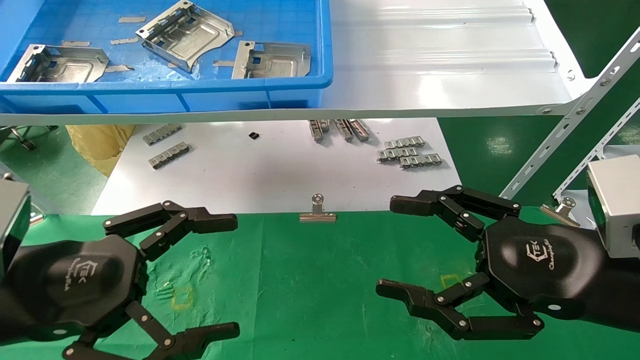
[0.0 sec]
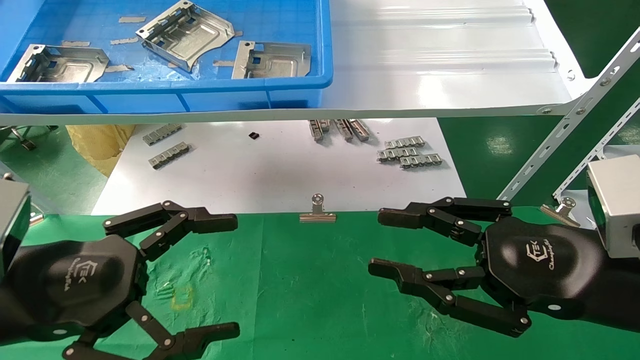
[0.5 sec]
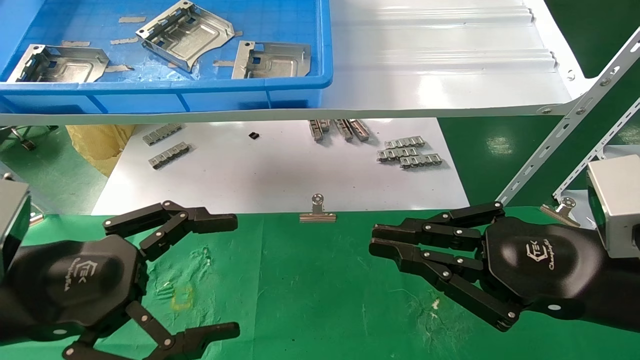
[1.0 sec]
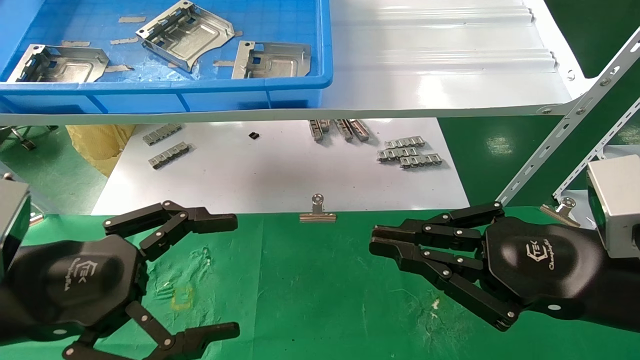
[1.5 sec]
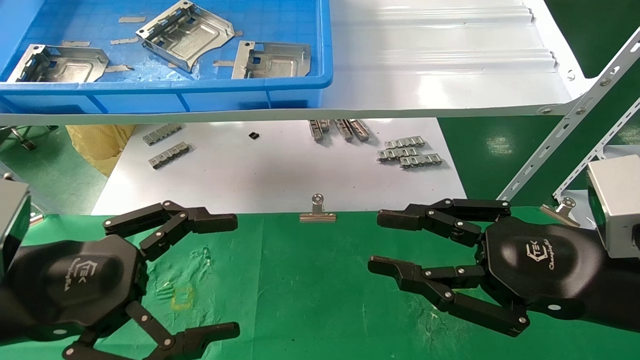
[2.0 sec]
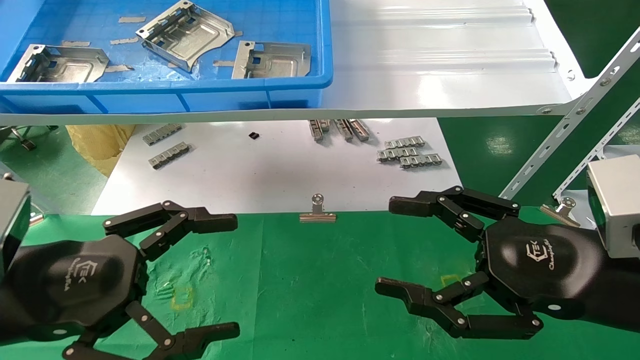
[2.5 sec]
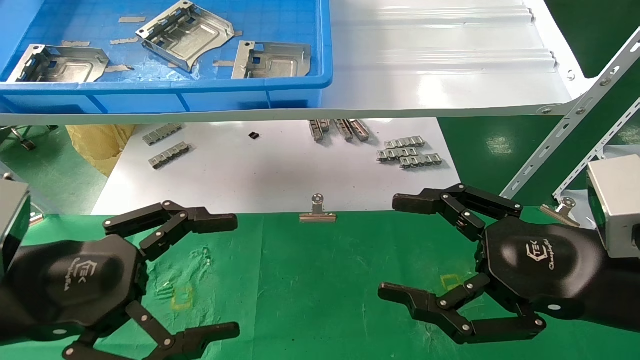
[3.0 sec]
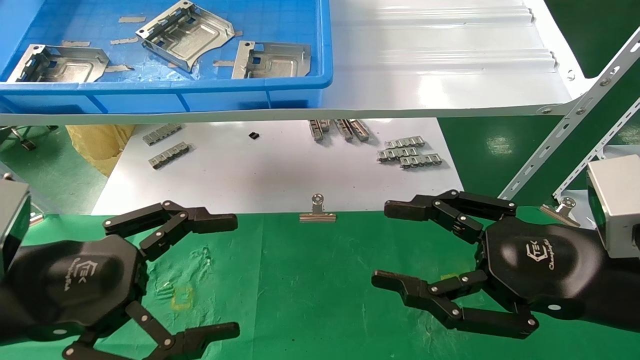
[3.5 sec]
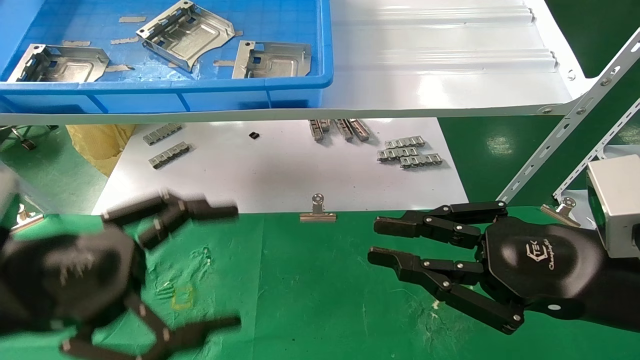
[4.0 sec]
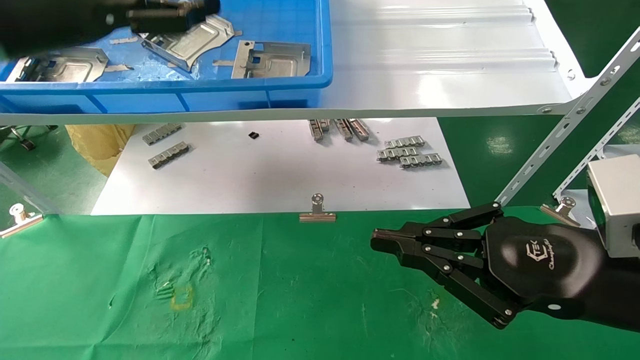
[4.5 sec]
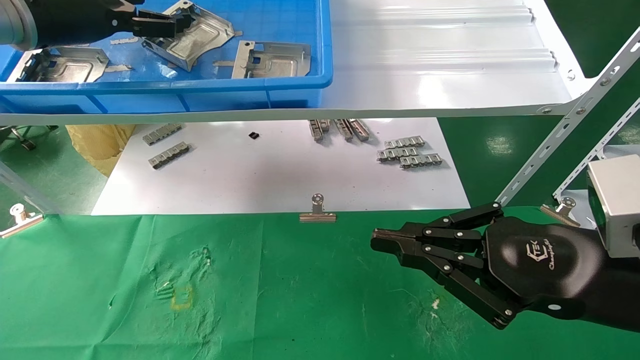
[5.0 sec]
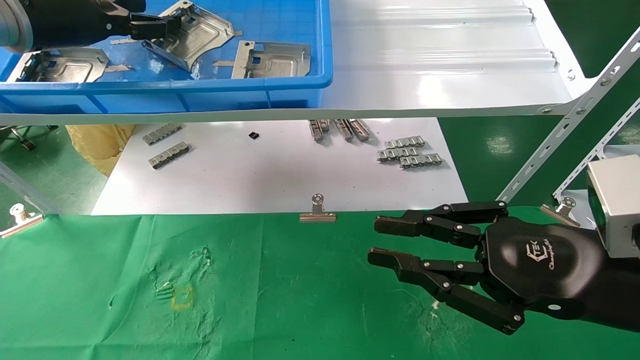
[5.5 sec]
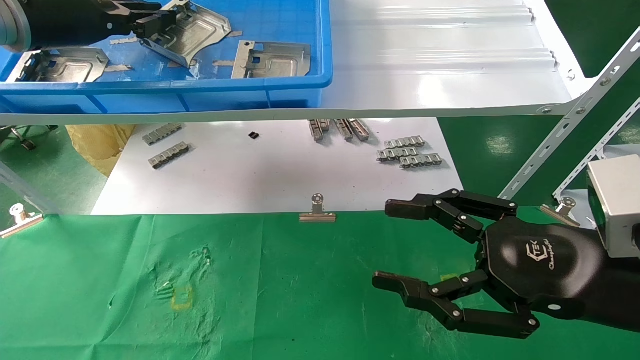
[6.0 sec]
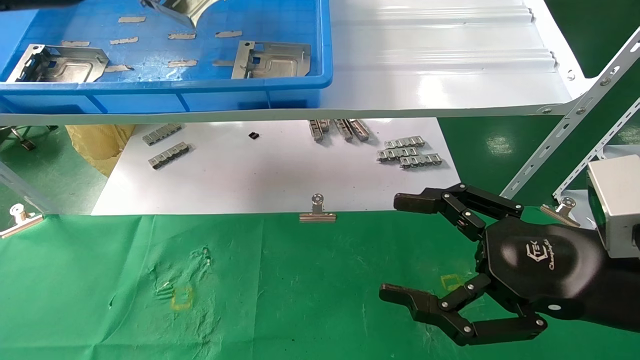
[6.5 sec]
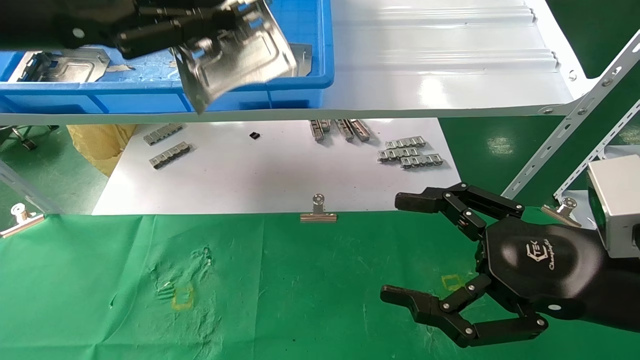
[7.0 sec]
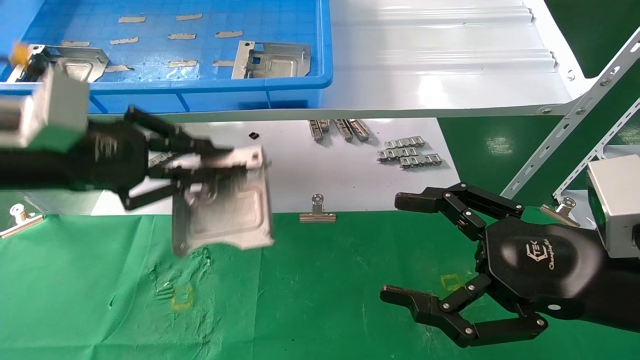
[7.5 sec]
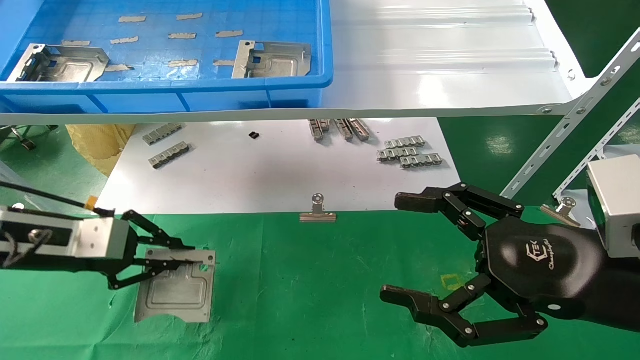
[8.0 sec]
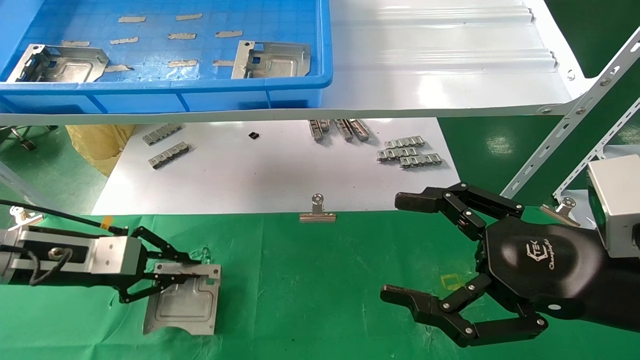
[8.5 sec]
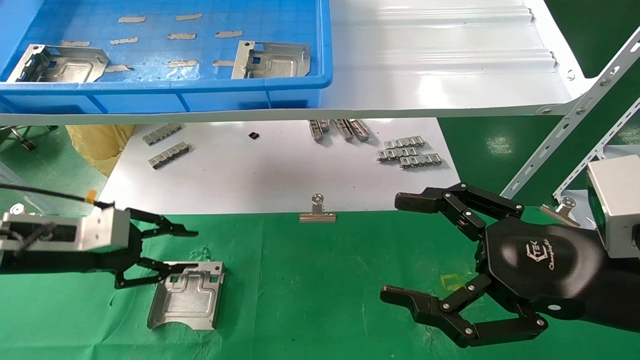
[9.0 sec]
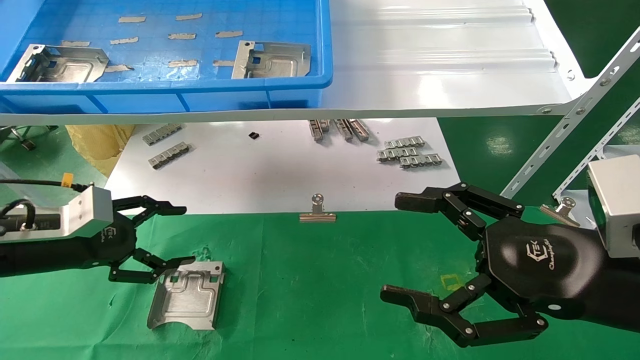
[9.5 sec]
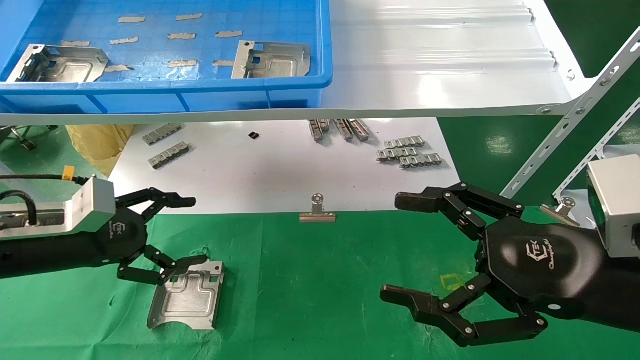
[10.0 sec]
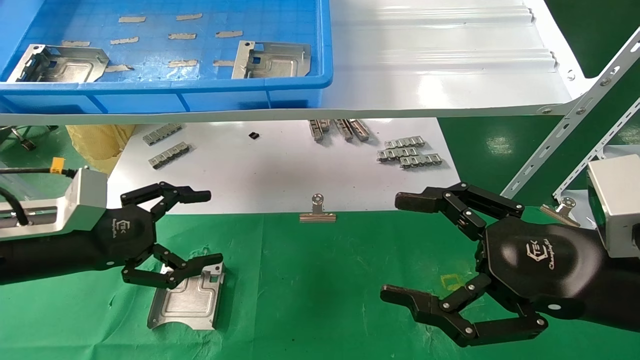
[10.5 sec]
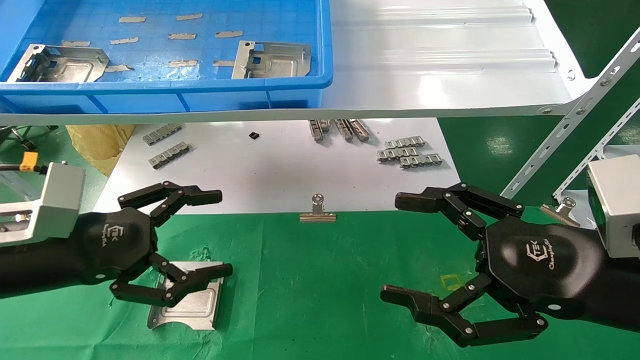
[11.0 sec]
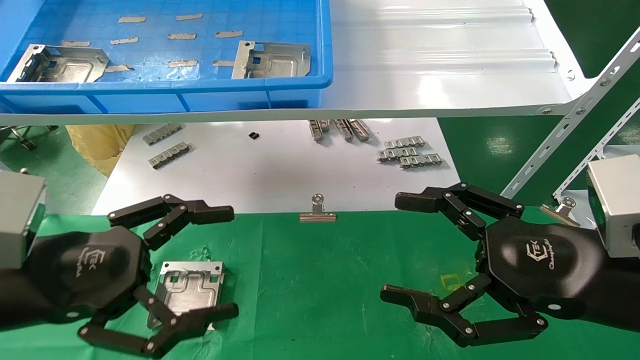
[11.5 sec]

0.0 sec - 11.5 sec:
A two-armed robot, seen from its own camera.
Task of the whole recording: use the mechanical arm to pick up the parts and place them on the table.
Step, 4.5 sec - 6.0 sec: Pick up the hard drive bracket from the feeding area.
Step, 6.5 sec - 8.5 sec: Place the hard drive bracket into the box.
0.0 sec - 2.0 sec: The right gripper closes.
2.0 sec - 4.0 sec: The right gripper opens and closes again.
4.0 sec - 6.0 sec: The left gripper is displaced forward and upward by approximately 25 cm, and closes its fingers.
6.0 sec - 7.5 sec: The left gripper shifts about 15 cm downward and backward; the right gripper opens its fingers.
7.5 sec - 9.5 sec: The left gripper travels downward and to the left by roughly 15 cm, and opens its fingers.
9.5 sec - 11.5 sec: The left gripper shifts about 15 cm backward and to the right.

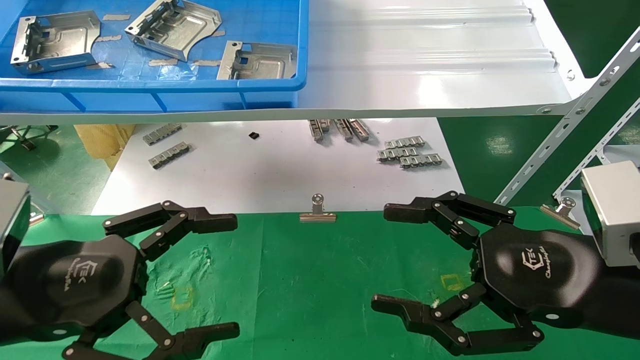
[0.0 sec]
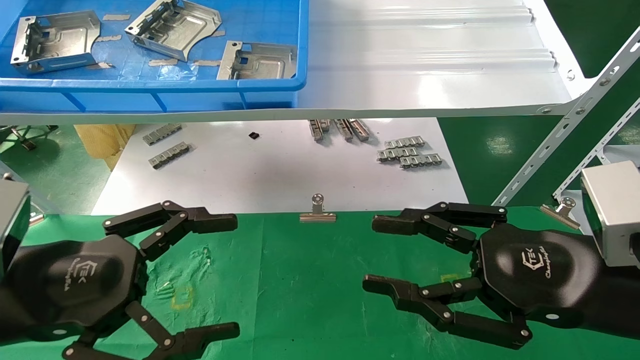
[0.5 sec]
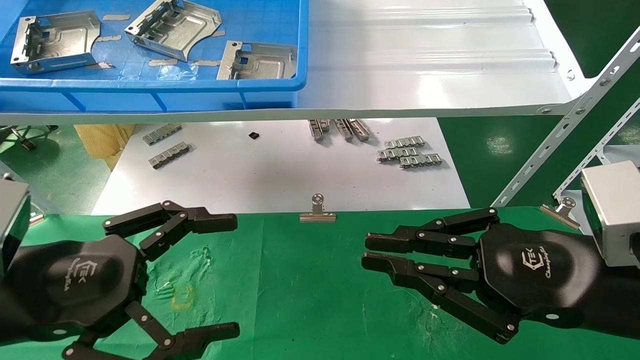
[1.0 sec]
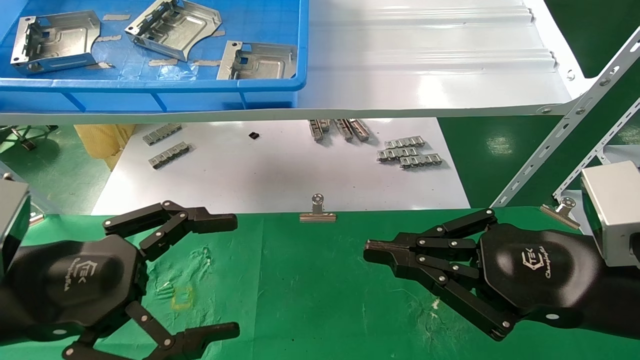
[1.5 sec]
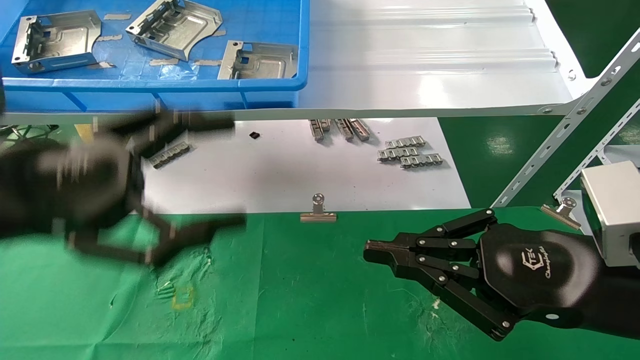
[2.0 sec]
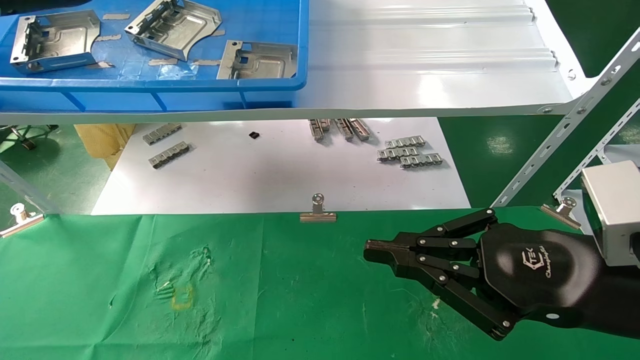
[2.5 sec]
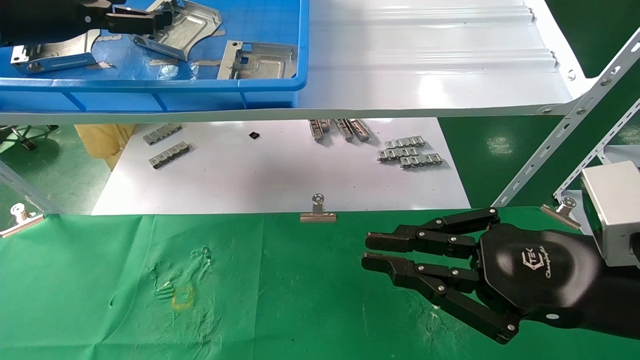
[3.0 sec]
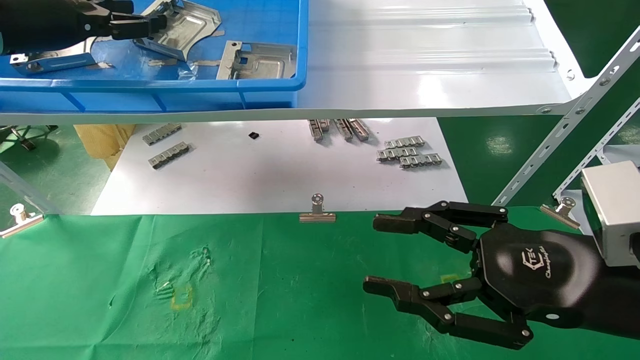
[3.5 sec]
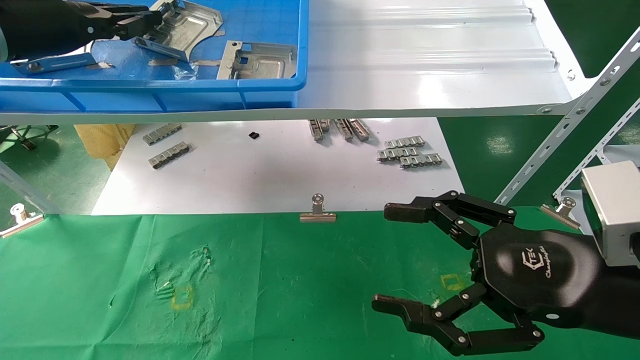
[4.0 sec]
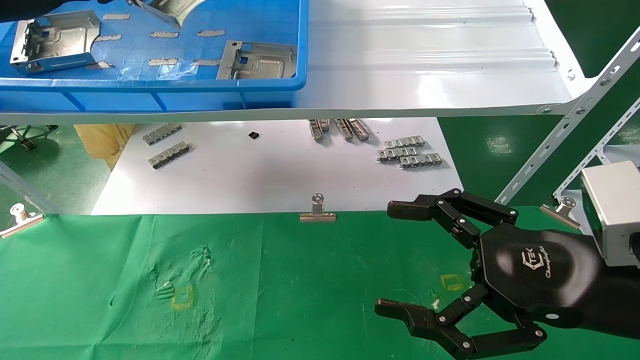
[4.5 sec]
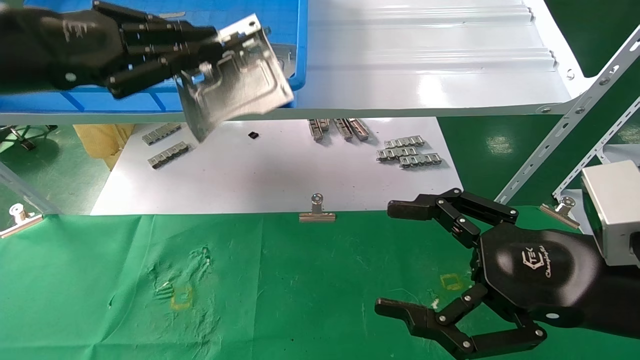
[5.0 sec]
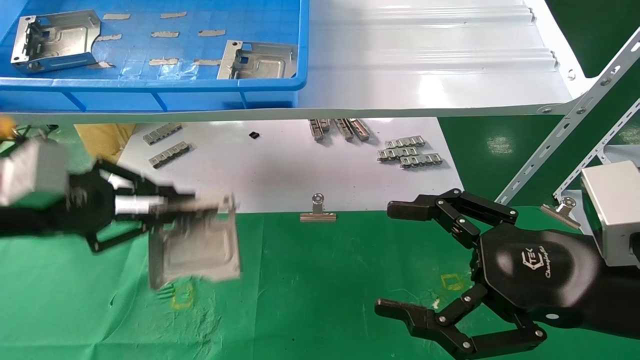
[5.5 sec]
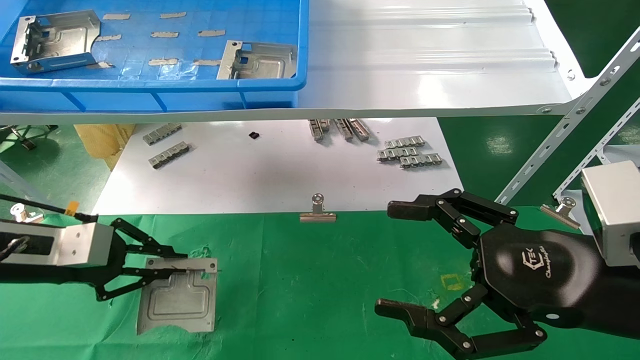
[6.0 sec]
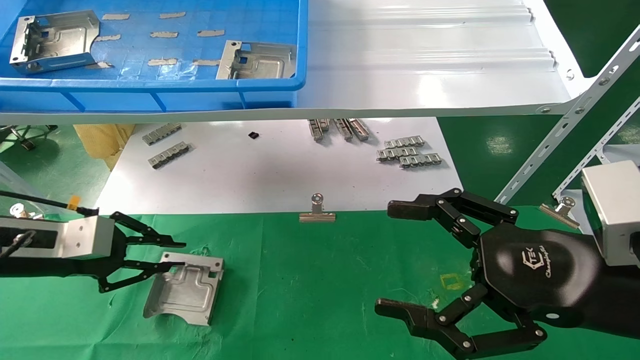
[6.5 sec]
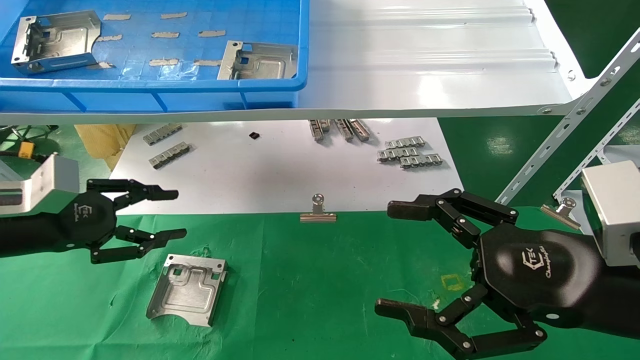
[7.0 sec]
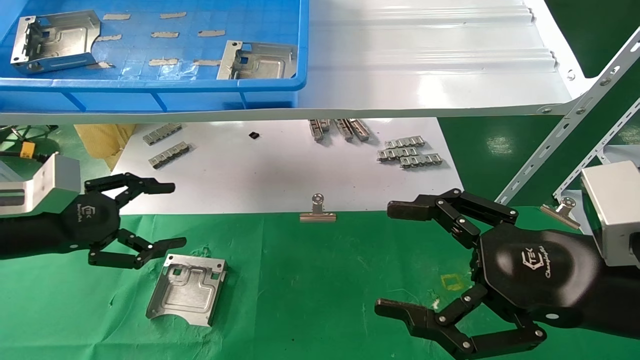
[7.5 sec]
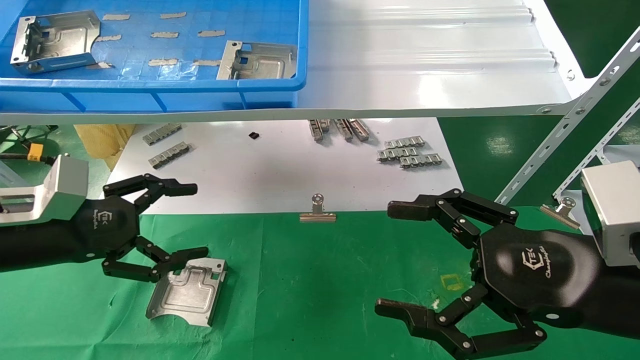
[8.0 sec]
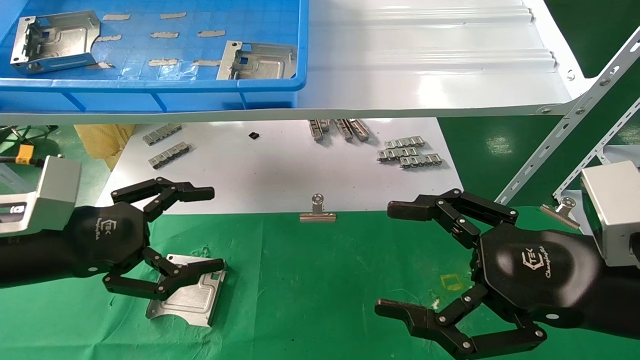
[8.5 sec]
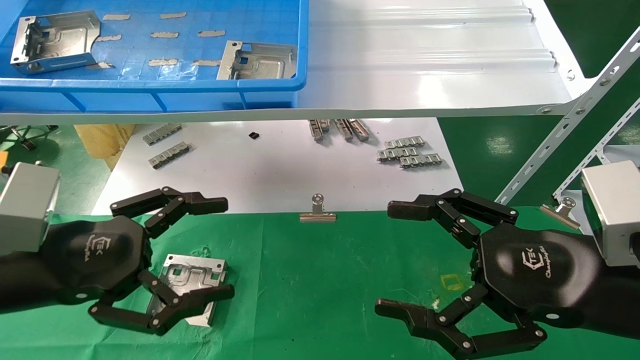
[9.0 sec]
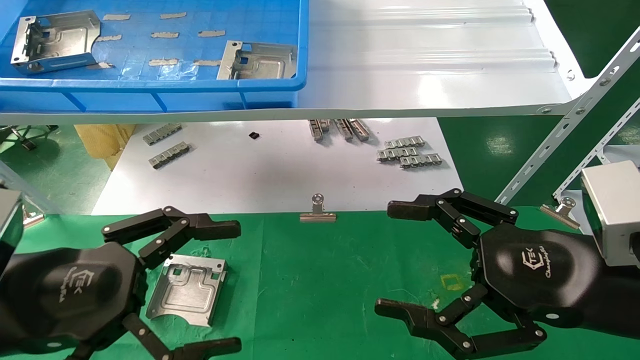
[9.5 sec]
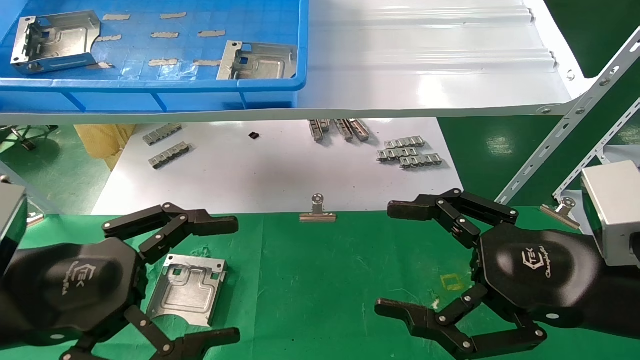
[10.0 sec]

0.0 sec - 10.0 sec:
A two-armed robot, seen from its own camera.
Task of the whole recording: use the mechanical arm to pick up the parts and place them on the table.
Step, 2.5 sec - 4.0 sec: Pick up the hard drive bracket from the feeding area.
Step, 4.5 sec - 6.5 sec: Place the hard drive bracket into the box.
0.0 sec - 2.0 sec: The right gripper closes its fingers. Meanwhile the left gripper shifts roughly 10 cm upward.
2.0 sec - 4.0 sec: The left gripper travels forward, upward and to the left by approximately 20 cm, and closes up. Meanwhile the right gripper opens its fingers.
4.0 sec - 6.0 sec: The left gripper goes approximately 25 cm downward.
6.0 sec - 8.0 sec: The left gripper opens up.
8.0 sec - 10.0 sec: The left gripper shifts roughly 15 cm backward and to the right.
